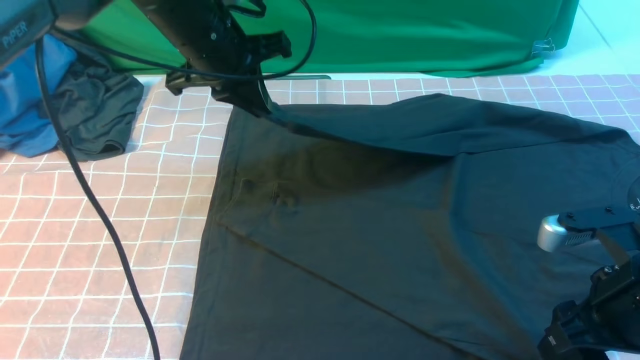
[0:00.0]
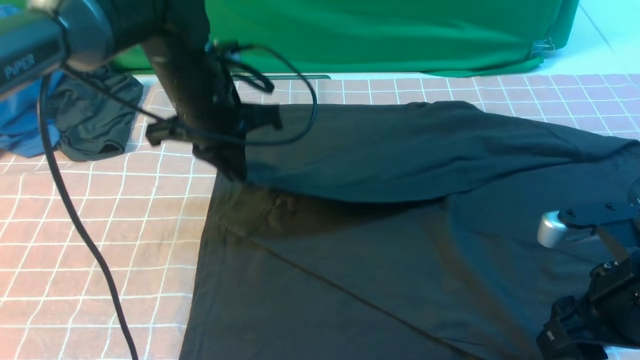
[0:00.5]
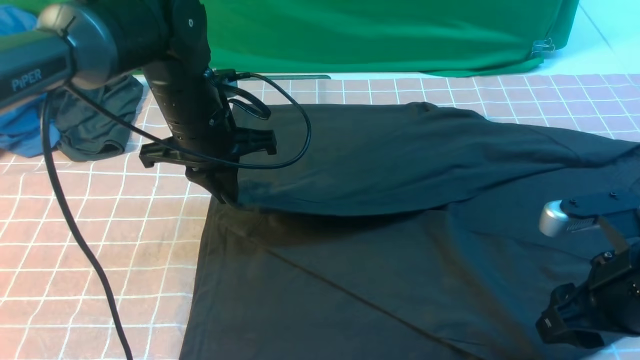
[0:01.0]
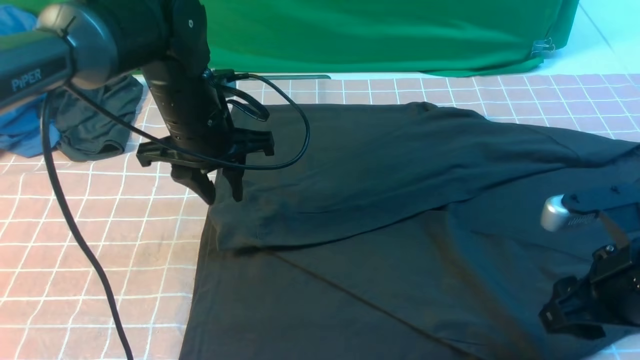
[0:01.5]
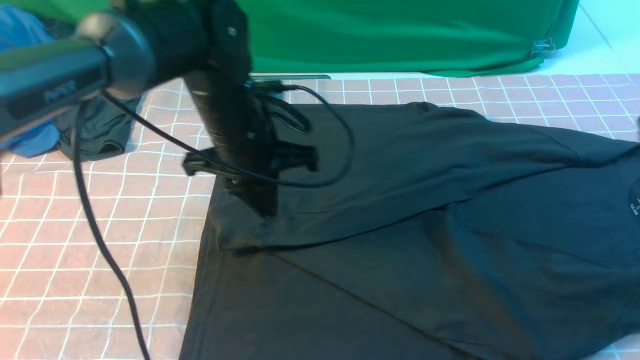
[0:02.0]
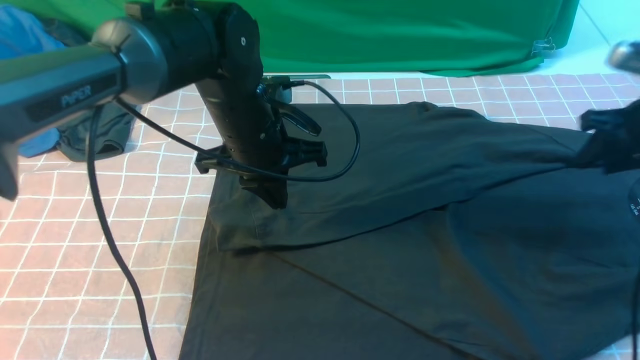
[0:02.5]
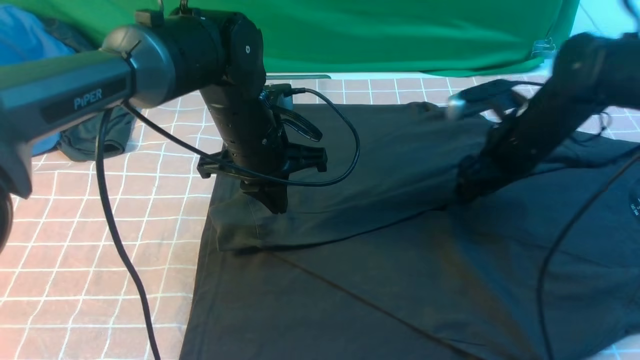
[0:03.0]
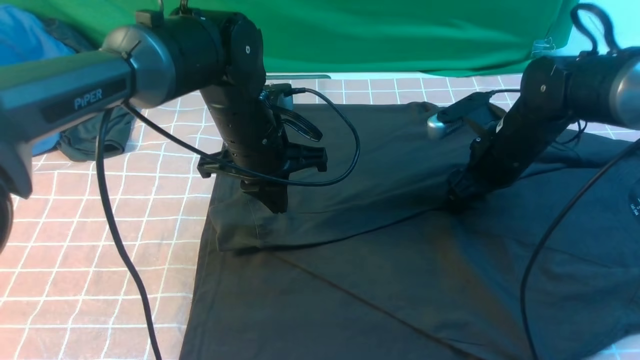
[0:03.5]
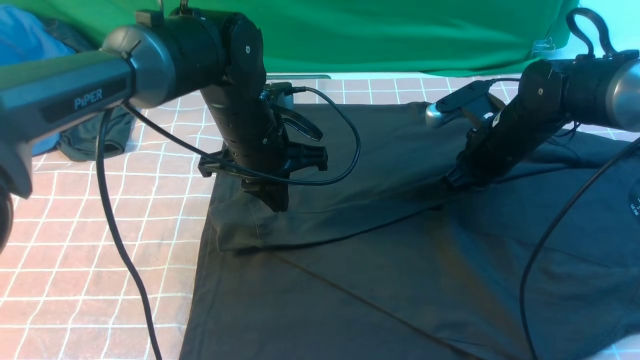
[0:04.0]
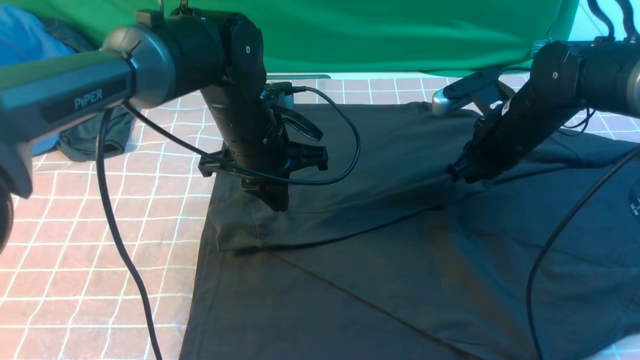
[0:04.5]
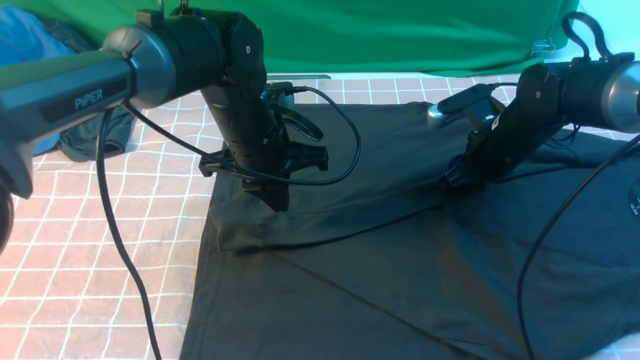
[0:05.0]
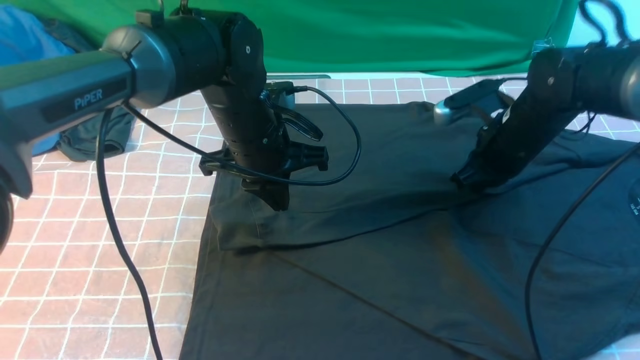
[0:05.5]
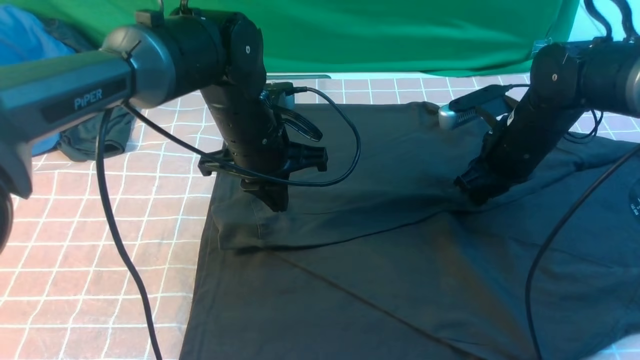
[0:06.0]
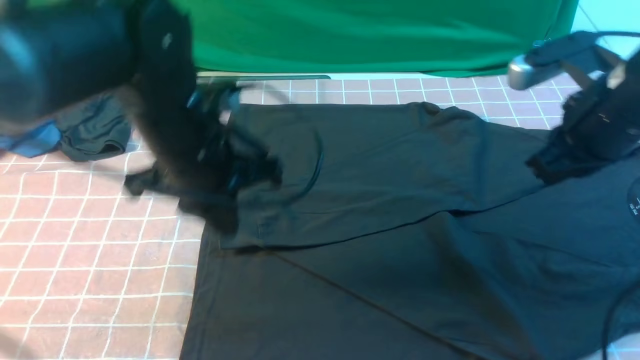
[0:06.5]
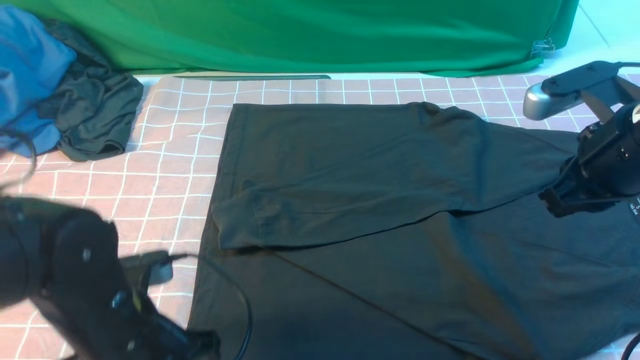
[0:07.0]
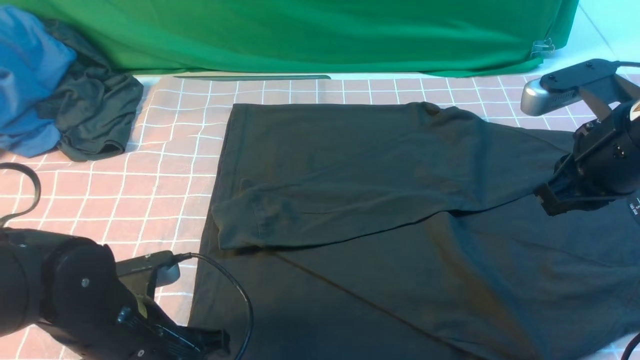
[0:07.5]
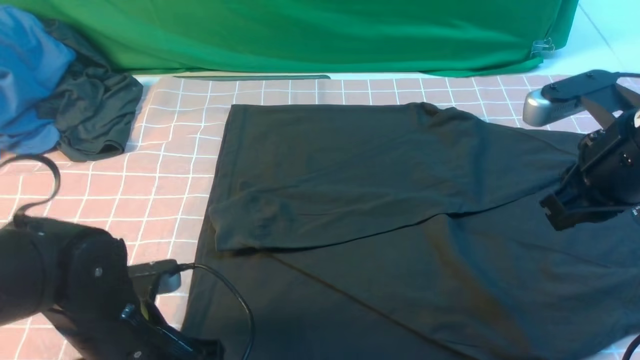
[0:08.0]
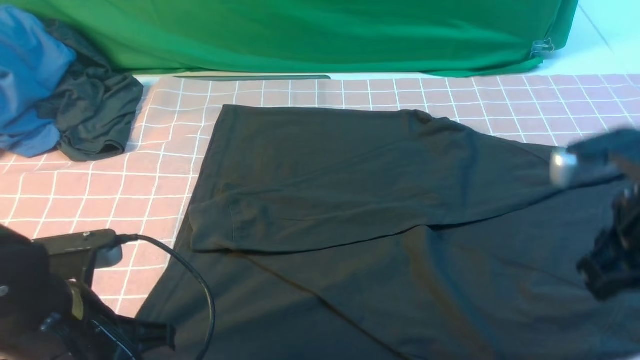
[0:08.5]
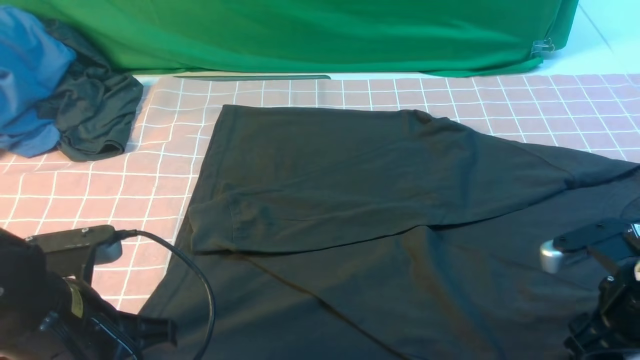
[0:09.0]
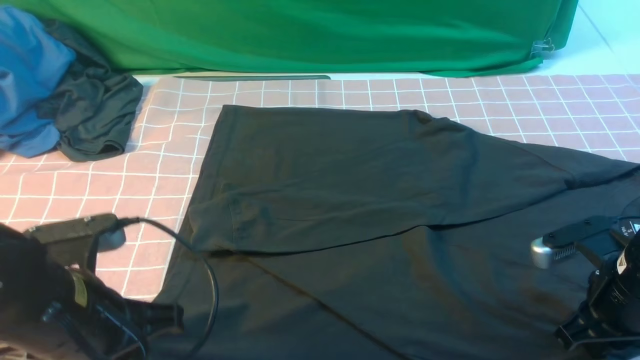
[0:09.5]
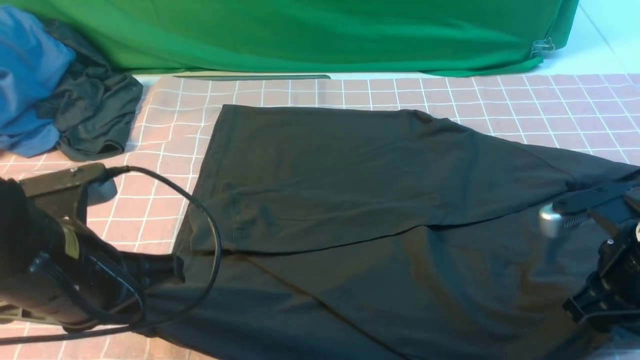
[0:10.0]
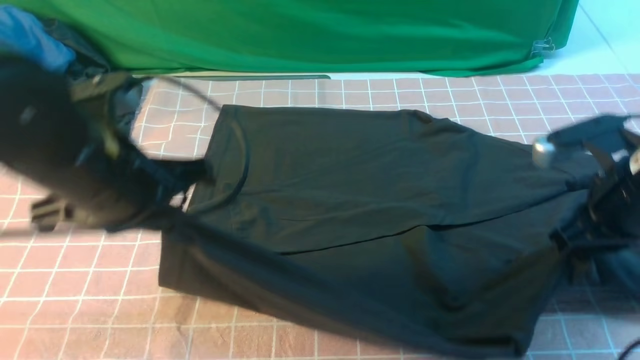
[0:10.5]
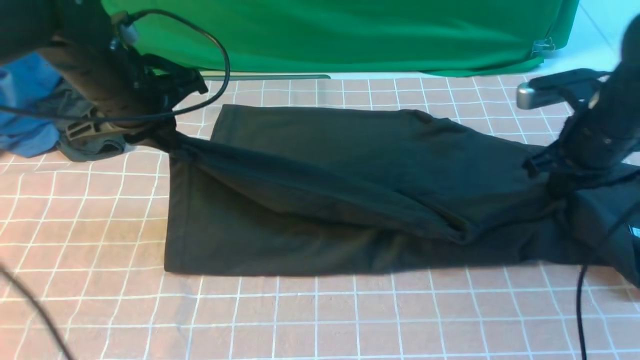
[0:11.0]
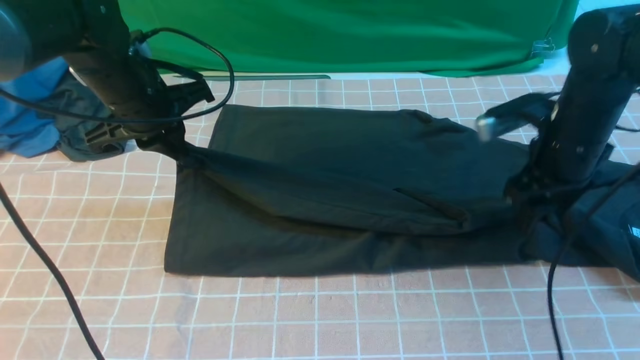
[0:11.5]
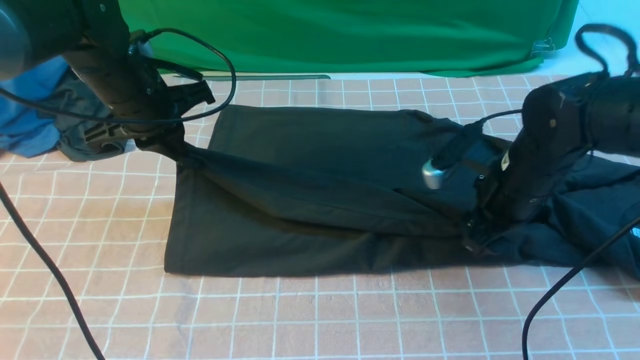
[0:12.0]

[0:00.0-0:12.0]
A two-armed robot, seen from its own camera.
Step, 0:00.0 to 0:01.5: use the left arm to drag and drop the cuff onto the cuff closest to the left arm.
Step, 0:02.0 to 0:10.0: use both arms simultaneously to clamp the lower edge of the clothing fabric.
0:00.0 to 0:02.0: The left gripper is displaced downward and backward by roughly 10 cm, and opens, then closes once more. The right gripper travels forward, upward and to the right by approximately 15 cm, and closes up.
0:02.0 to 0:04.0: The right gripper travels downward, forward and to the left by roughly 20 cm, and opens and closes again.
0:04.0 to 0:06.0: The grippers make only small movements.
0:06.0 to 0:08.0: The left gripper is displaced backward and to the left by about 20 cm, and opens, then closes once more, while the right gripper shifts about 15 cm backward and upward, and closes its fingers.
0:08.0 to 0:10.0: The left gripper goes about 10 cm upward; the right gripper heads downward, covering some 10 cm, and opens and closes again.
0:10.0 to 0:12.0: The right gripper is displaced forward and to the left by roughly 15 cm, and opens; the left gripper shifts about 20 cm forward.

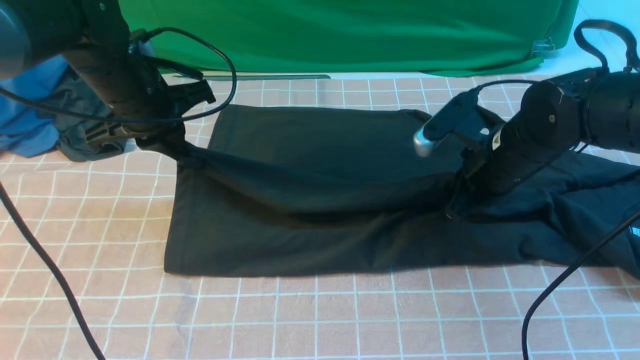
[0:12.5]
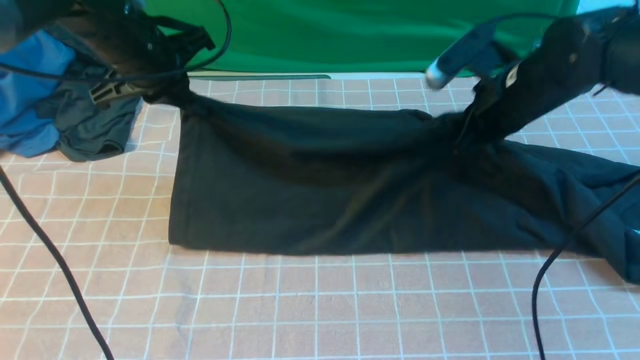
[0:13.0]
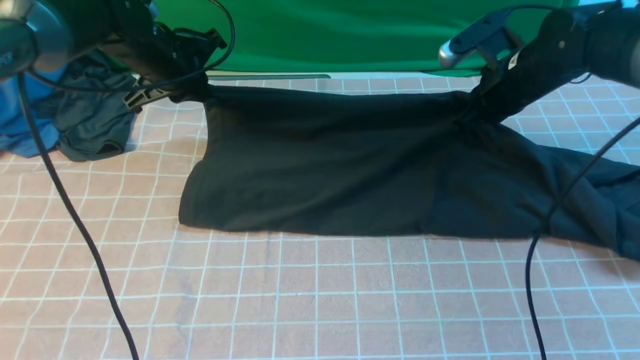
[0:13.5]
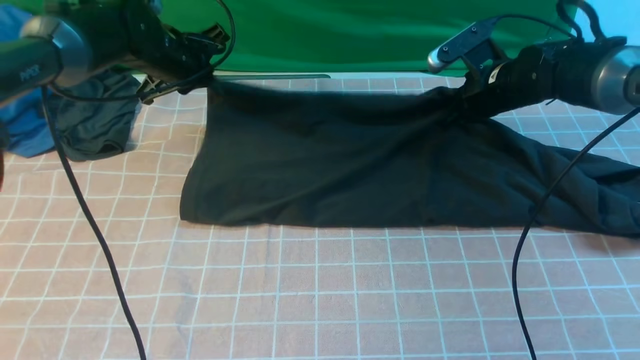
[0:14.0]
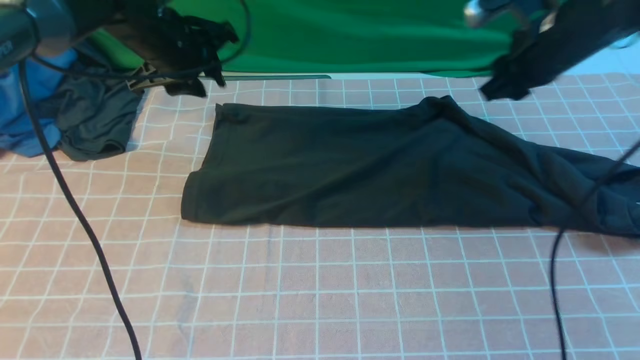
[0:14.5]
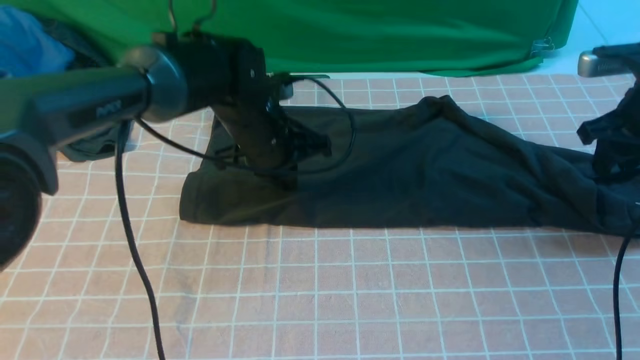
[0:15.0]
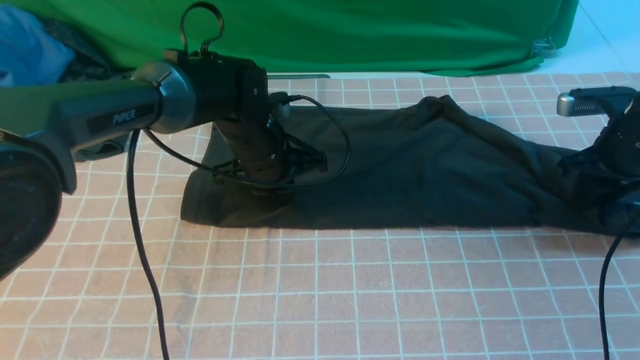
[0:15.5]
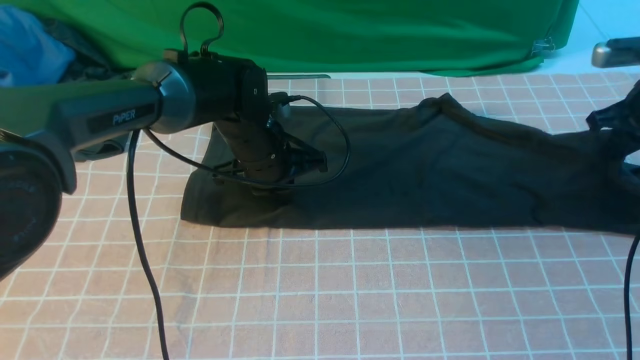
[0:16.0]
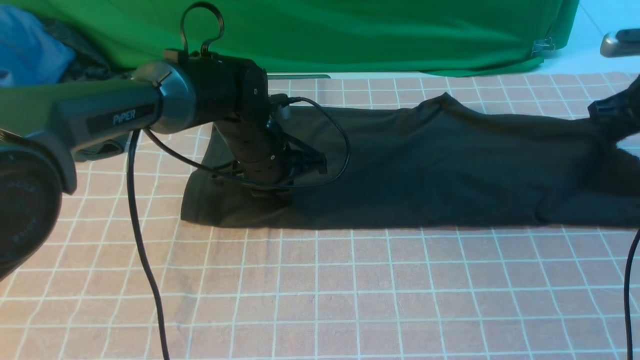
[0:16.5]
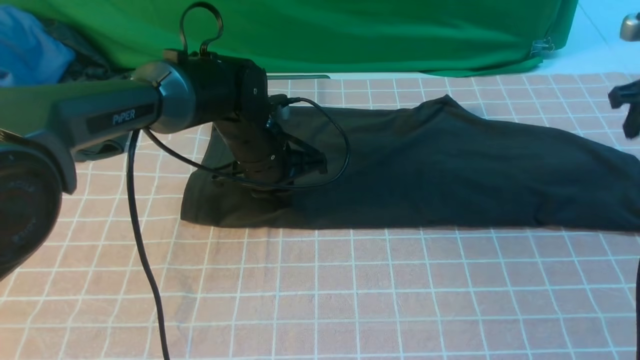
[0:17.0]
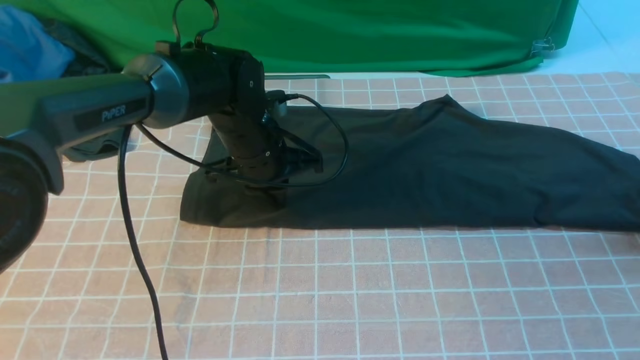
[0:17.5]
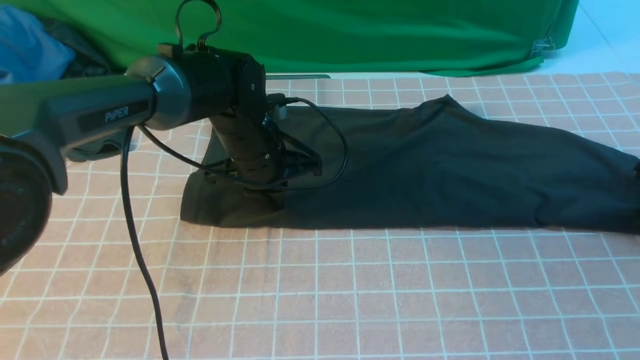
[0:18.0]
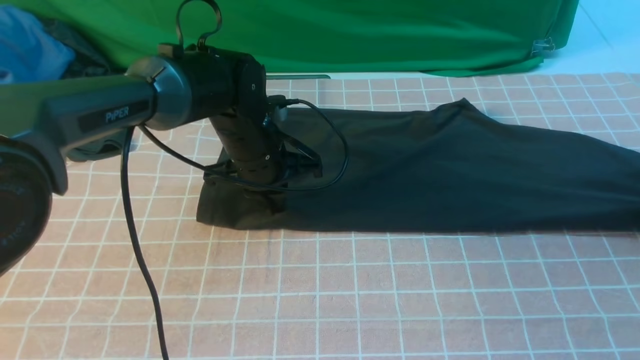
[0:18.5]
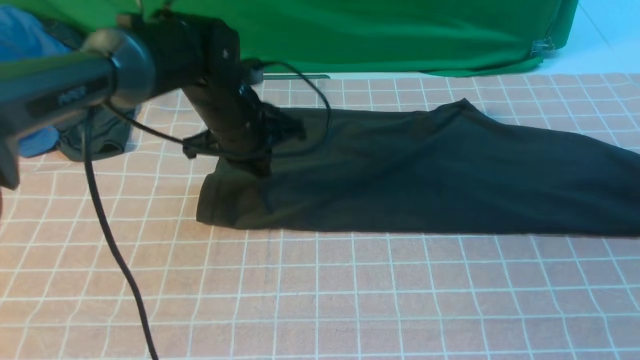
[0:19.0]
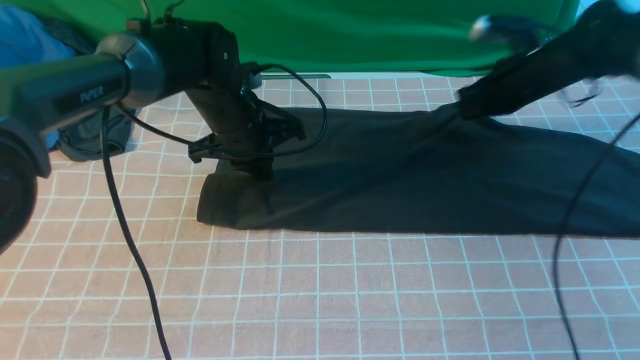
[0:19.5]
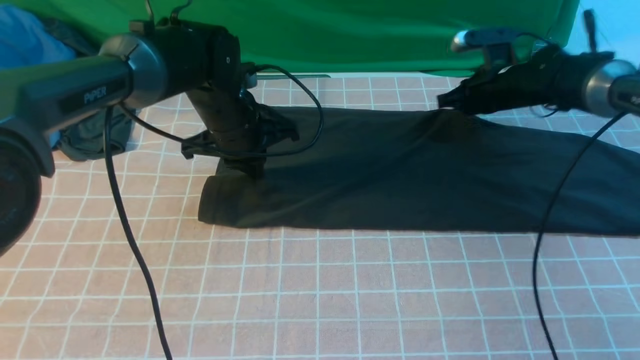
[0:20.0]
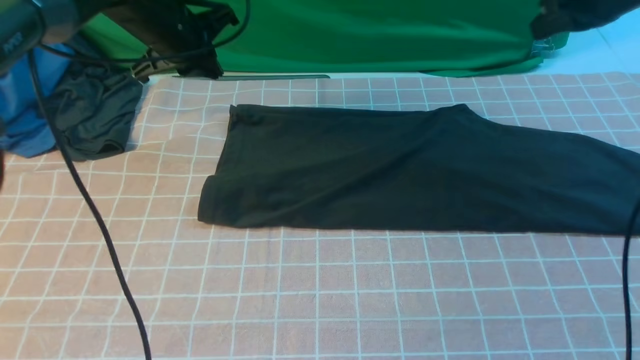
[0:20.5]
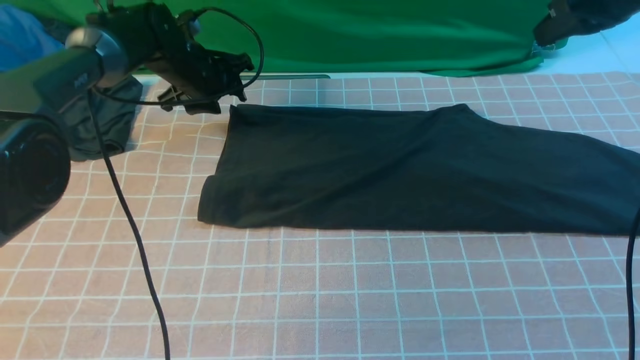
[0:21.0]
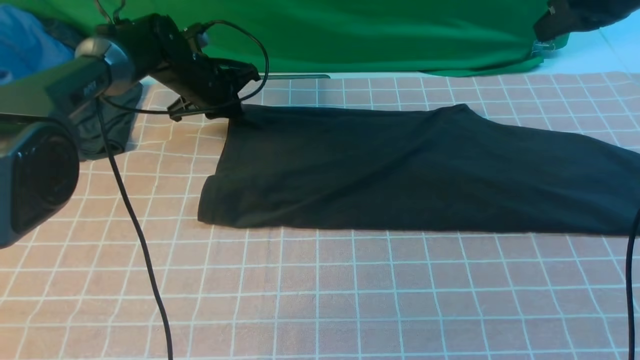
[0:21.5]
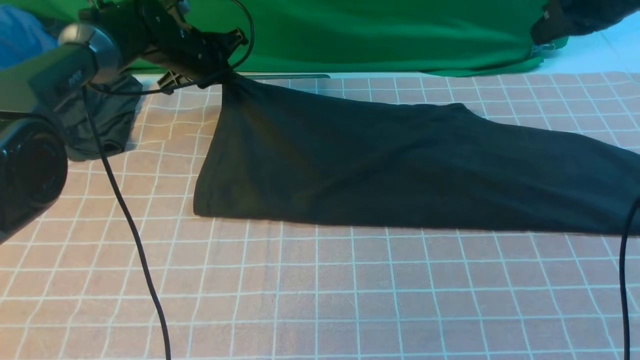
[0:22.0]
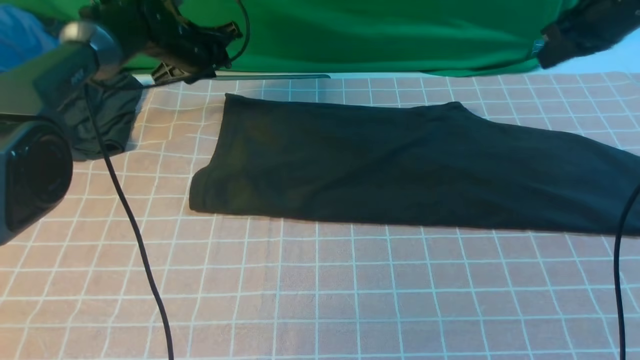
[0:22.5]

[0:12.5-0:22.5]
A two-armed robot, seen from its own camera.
Step, 0:12.5 to 0:20.0: use both arms to drag the lower edge of the fabric forward and fold it over the upper edge.
0:12.5 to 0:14.5: The right gripper shifts roughly 10 cm to the right, forward and upward, while the left gripper goes about 5 cm forward, and opens its fingers.
0:14.5 to 0:16.5: The right gripper heads to the right, covering some 15 cm, while the left gripper goes roughly 15 cm to the right, downward and backward, and closes its fingers.
0:16.5 to 0:18.5: The right gripper is displaced to the right and backward by some 10 cm.
0:18.5 to 0:20.5: The left gripper travels to the left, forward and upward by some 15 cm; the right gripper is displaced to the left, upward and forward by approximately 25 cm.
0:20.5 to 0:22.5: The left gripper opens its fingers.
